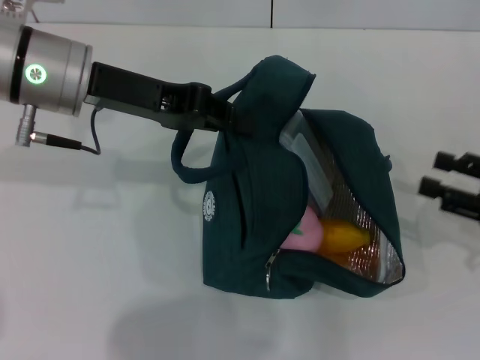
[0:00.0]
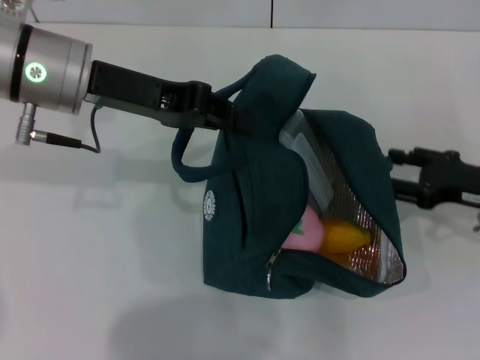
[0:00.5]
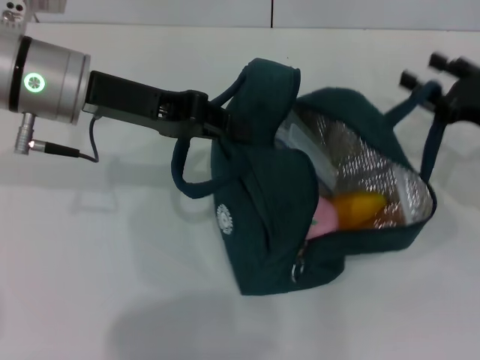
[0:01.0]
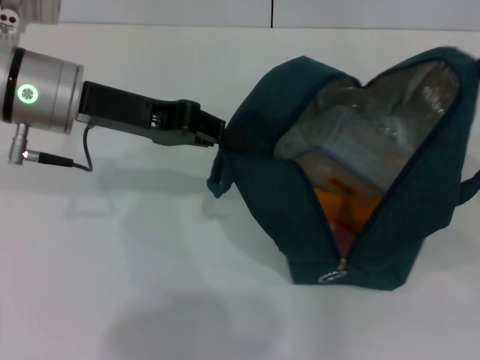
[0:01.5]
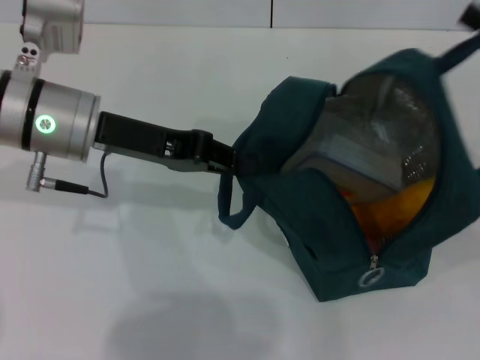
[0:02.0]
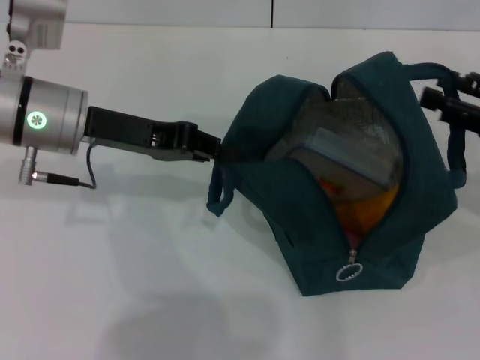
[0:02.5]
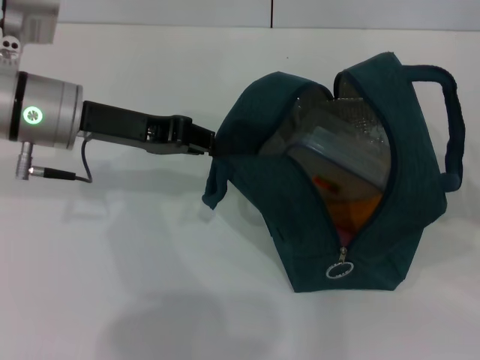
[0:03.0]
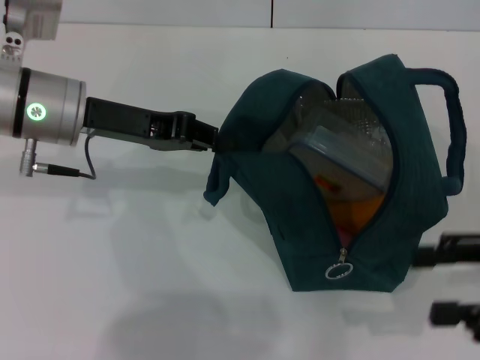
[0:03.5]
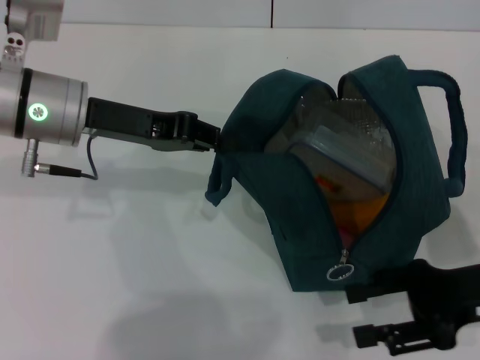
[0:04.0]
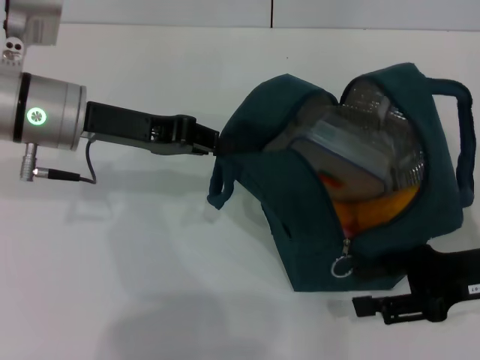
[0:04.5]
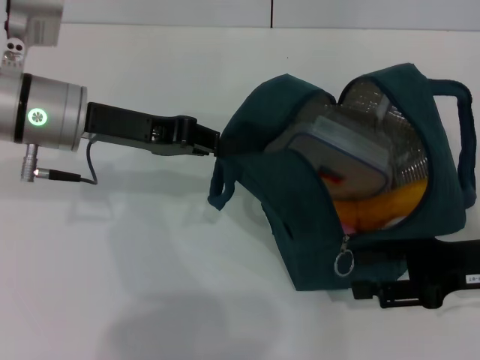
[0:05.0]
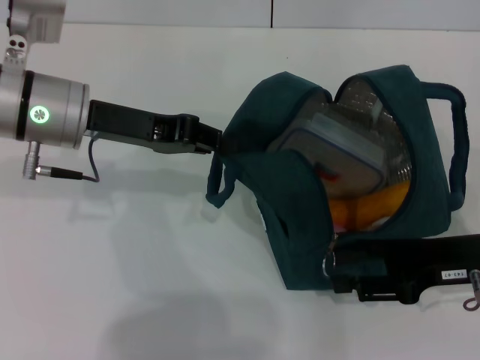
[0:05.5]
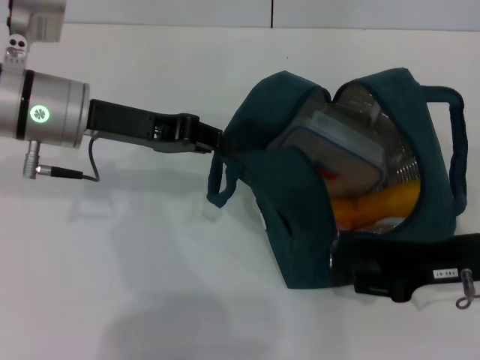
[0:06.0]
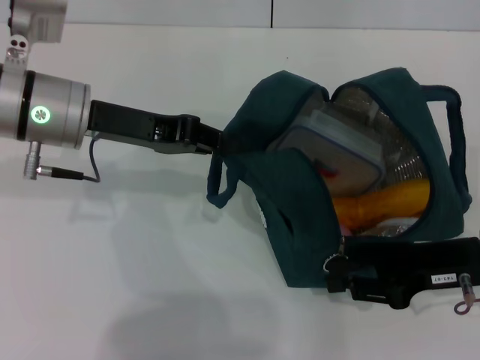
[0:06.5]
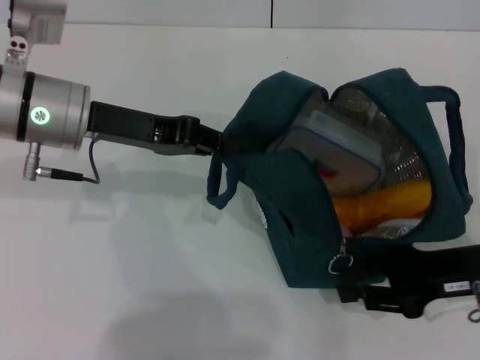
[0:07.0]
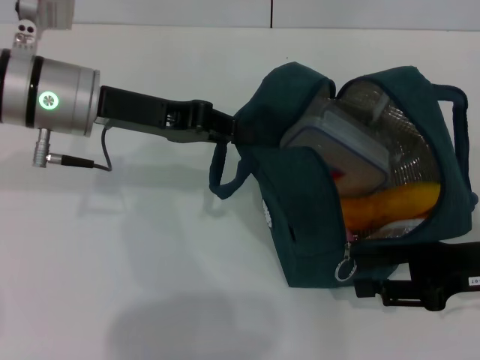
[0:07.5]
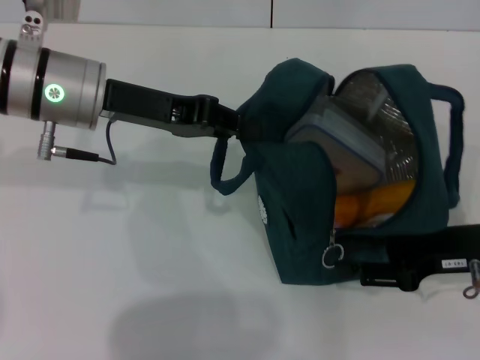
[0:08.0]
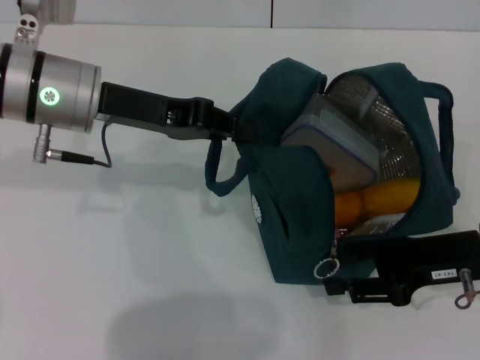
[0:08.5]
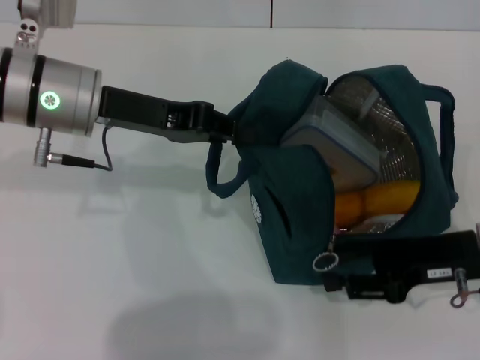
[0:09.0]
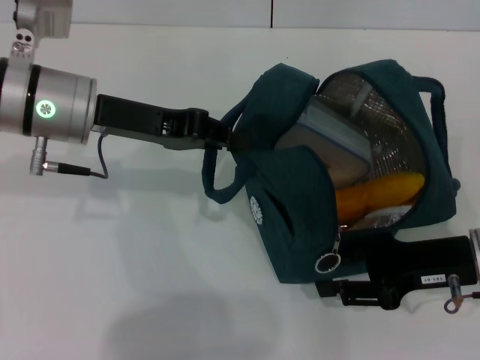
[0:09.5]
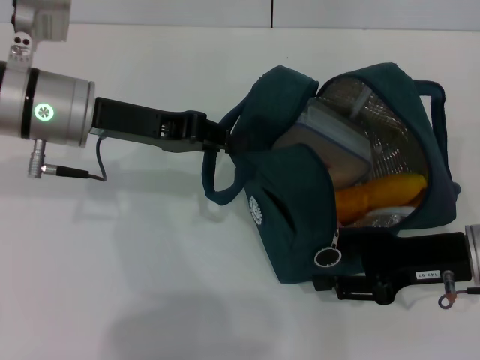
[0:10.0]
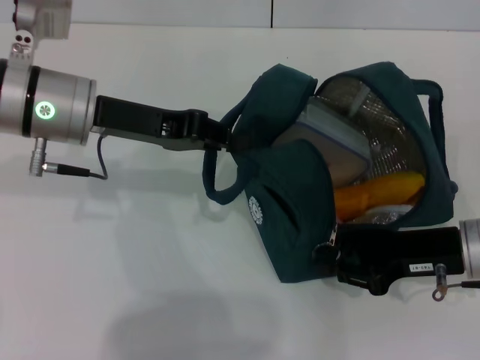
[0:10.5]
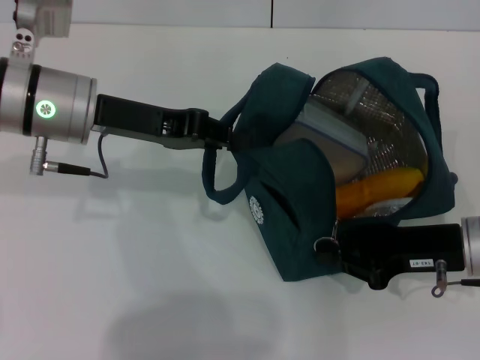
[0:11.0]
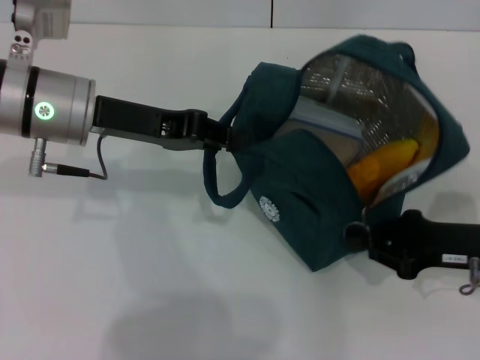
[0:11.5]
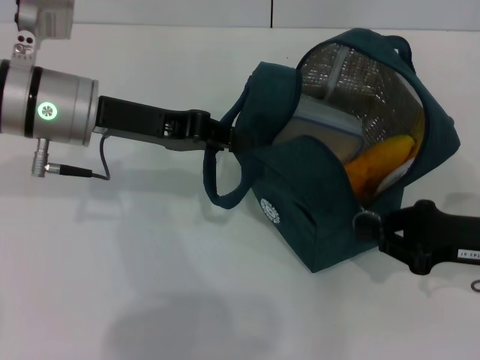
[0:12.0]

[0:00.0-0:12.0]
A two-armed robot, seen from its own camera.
Step, 0:00.0 to 0:02.0: Hold the lunch bag with your right hand.
0:00.0 to 0:02.0: The right gripper shifts about 10 cm upward and forward.
0:02.0 to 0:04.0: The right gripper travels downward, backward and to the left by some 10 cm.
0:04.0 to 0:10.0: There are only small adjustments of the grippers.
0:10.0 to 0:12.0: The right gripper closes.

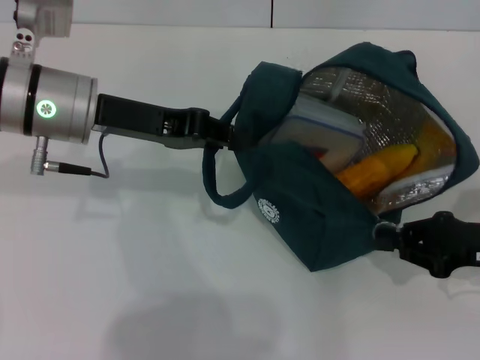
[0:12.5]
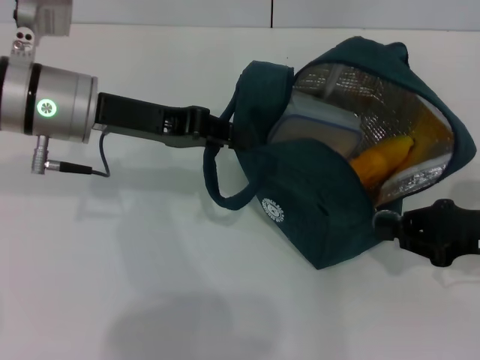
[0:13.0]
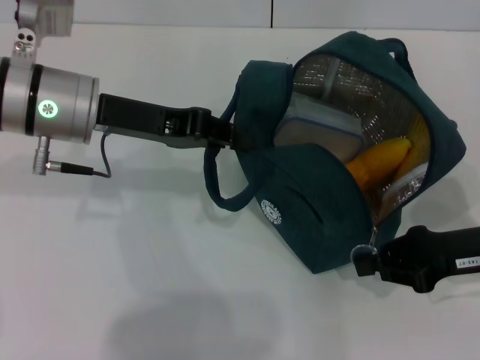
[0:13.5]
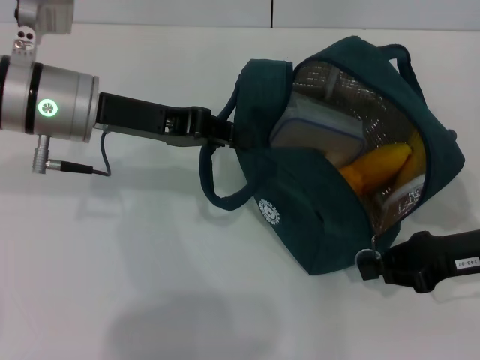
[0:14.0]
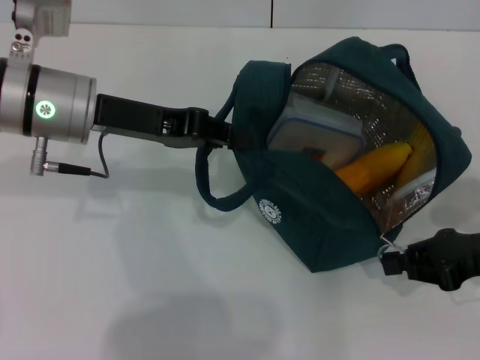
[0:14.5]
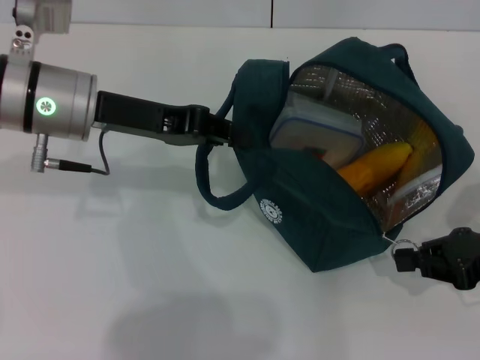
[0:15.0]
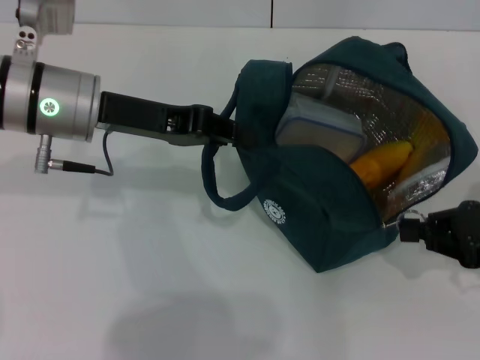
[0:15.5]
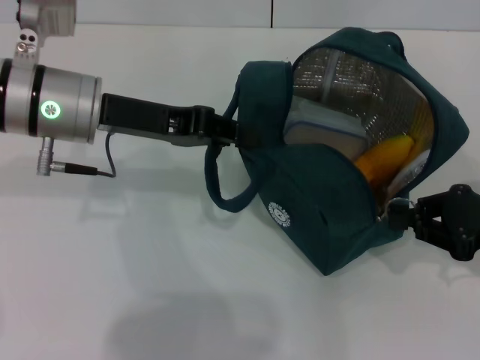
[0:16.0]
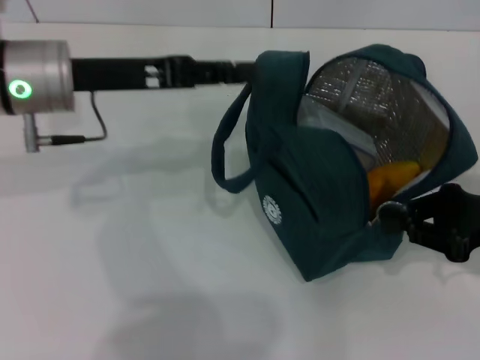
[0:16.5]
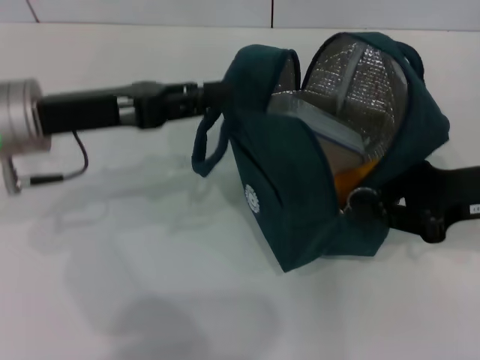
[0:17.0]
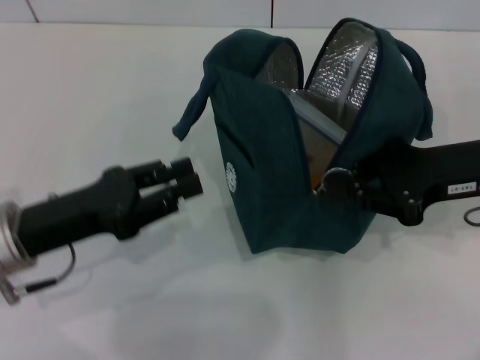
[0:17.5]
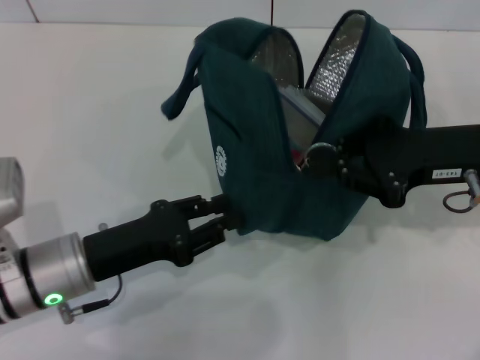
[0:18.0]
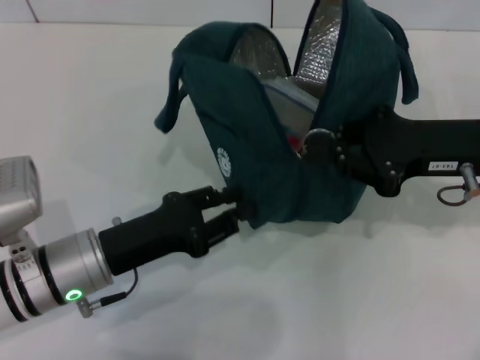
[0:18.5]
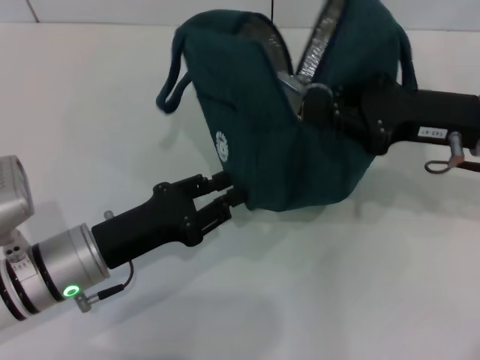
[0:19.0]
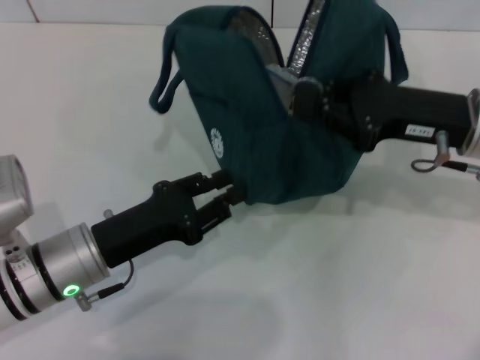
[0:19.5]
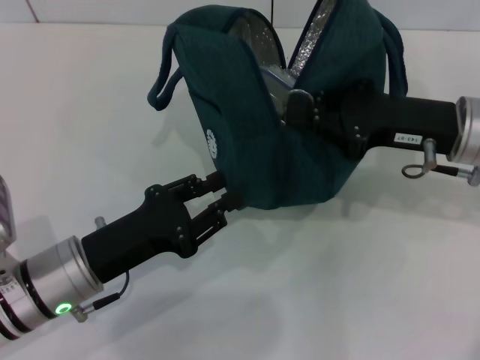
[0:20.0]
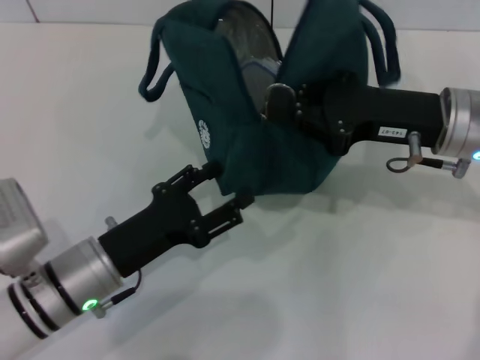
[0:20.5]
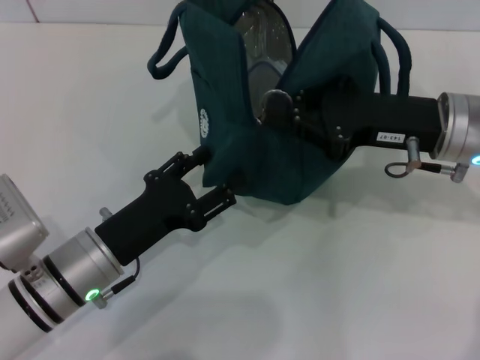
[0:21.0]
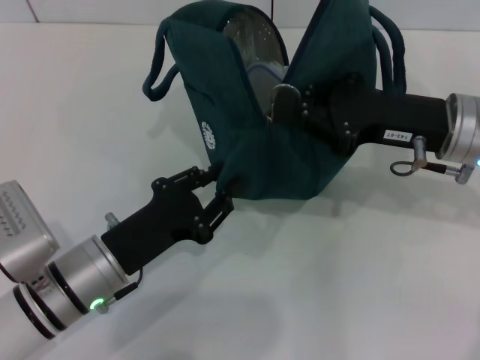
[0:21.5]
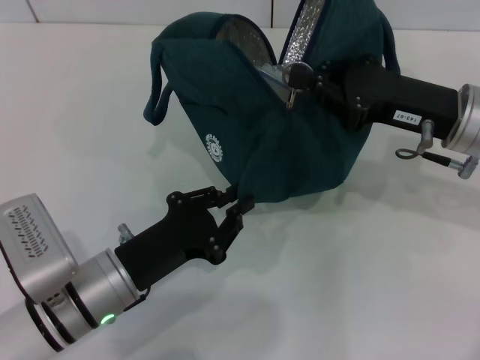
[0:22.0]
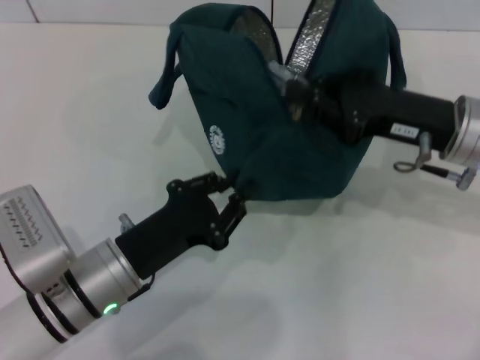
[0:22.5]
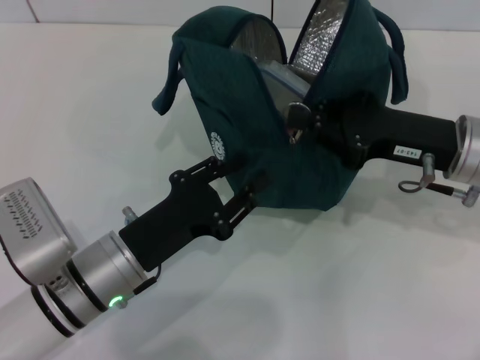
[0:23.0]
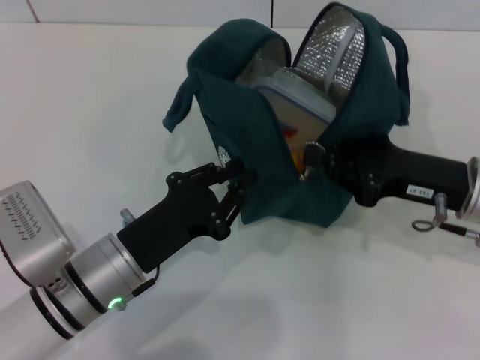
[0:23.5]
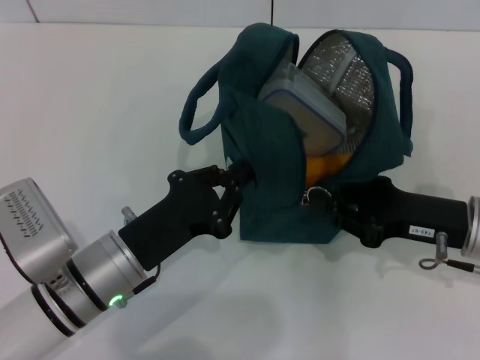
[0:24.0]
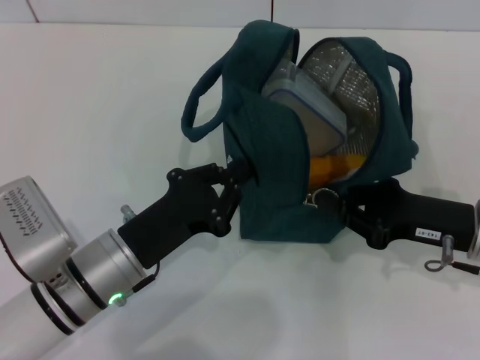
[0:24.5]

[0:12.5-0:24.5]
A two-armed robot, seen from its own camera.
0:12.5 to 0:14.5: There are only small adjustments of the grippers.
0:14.5 to 0:16.5: The left gripper opens.
0:16.5 to 0:18.5: The left gripper shifts some 20 cm downward and backward, while the right gripper shifts approximately 5 cm to the left.
0:20.5 to 0:22.5: The left gripper closes up.
0:22.5 to 0:24.5: The right gripper goes roughly 10 cm downward and backward.

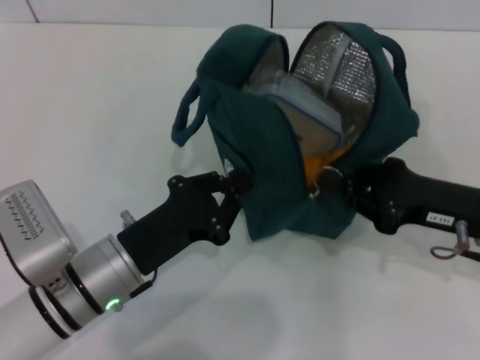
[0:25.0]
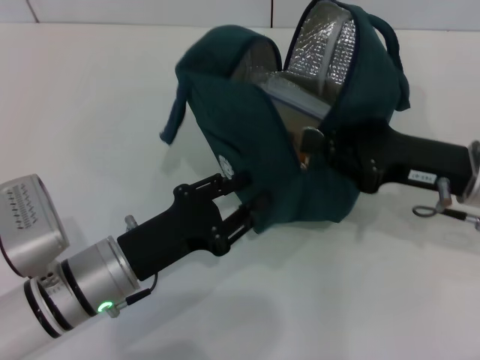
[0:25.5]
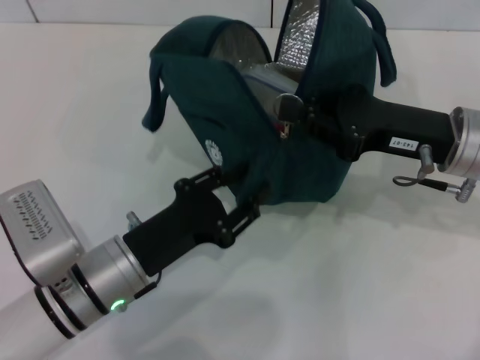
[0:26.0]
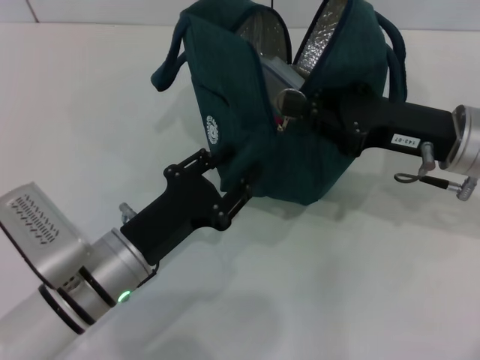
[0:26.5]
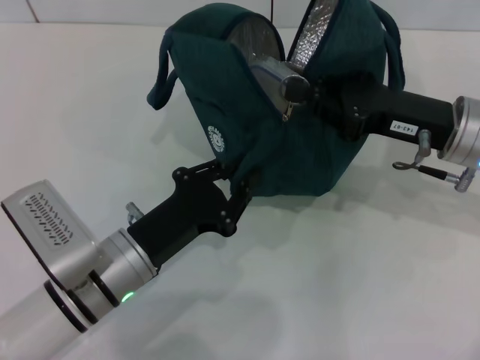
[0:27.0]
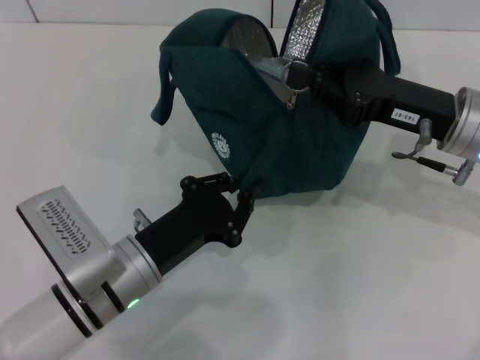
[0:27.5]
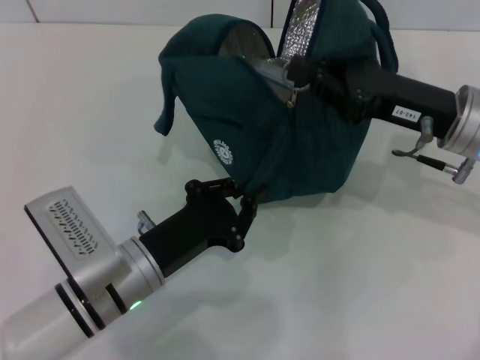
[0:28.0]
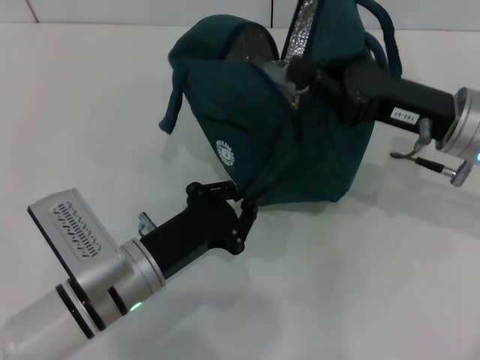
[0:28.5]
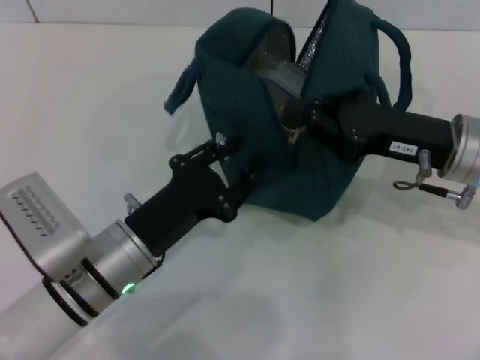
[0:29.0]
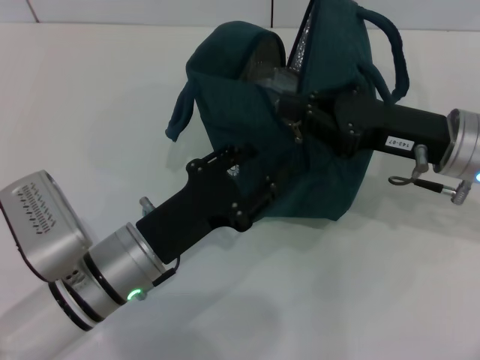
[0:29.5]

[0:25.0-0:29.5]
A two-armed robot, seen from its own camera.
0:25.0 to 0:27.0: The right gripper shifts some 5 cm forward.
0:27.0 to 0:29.5: The grippers move only a little.
